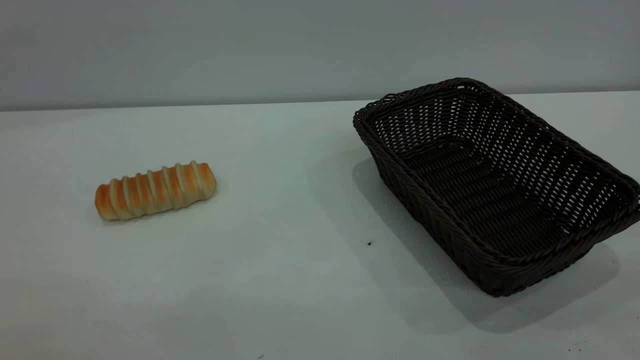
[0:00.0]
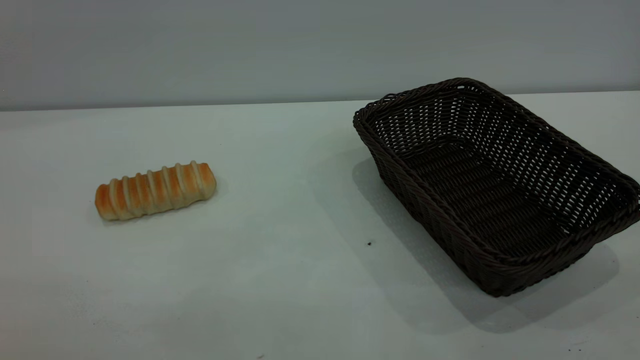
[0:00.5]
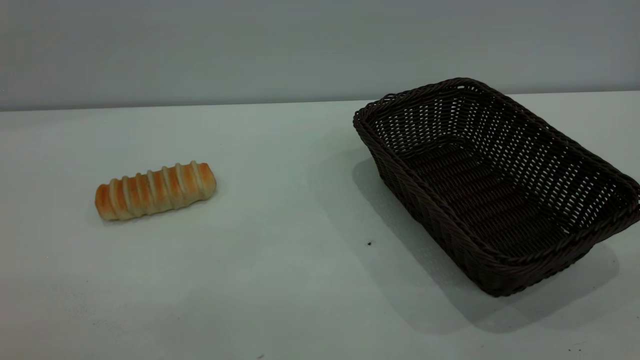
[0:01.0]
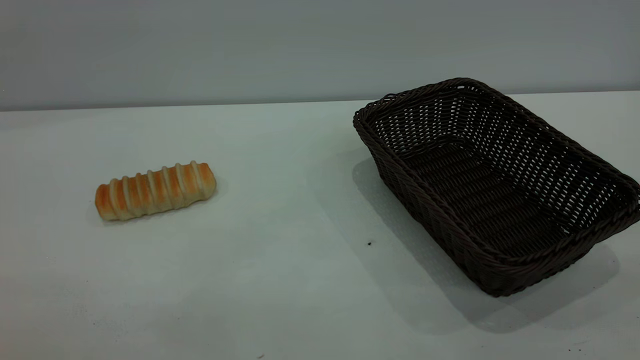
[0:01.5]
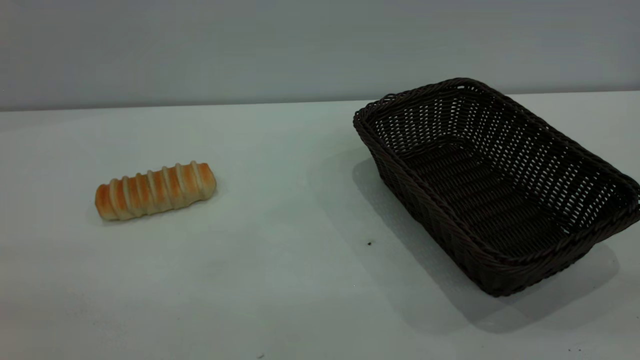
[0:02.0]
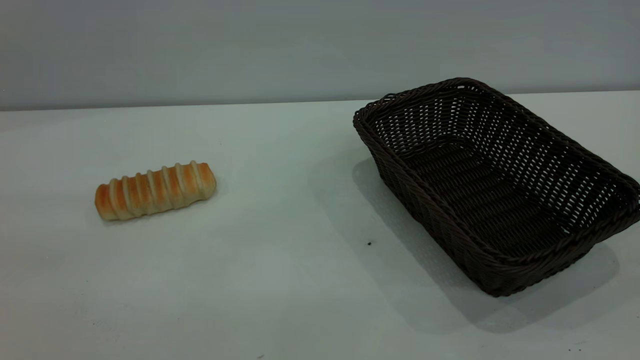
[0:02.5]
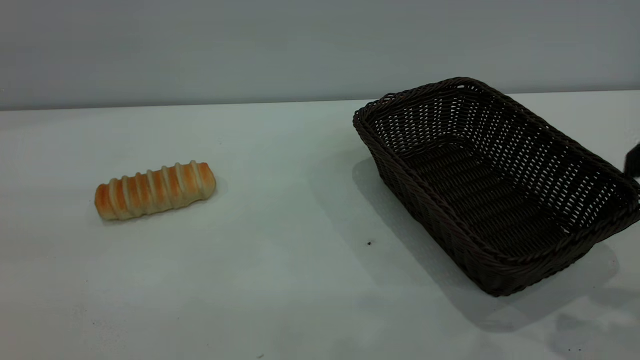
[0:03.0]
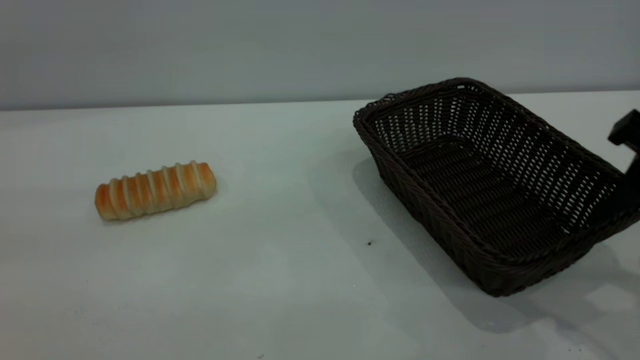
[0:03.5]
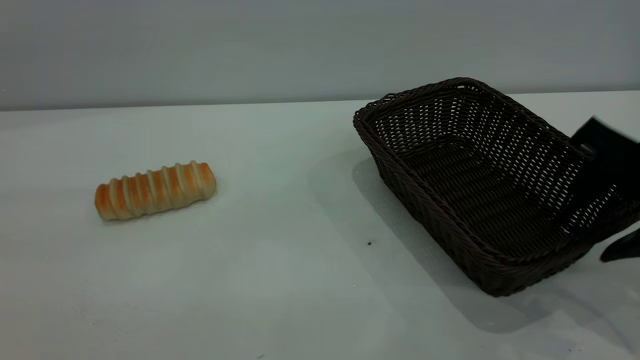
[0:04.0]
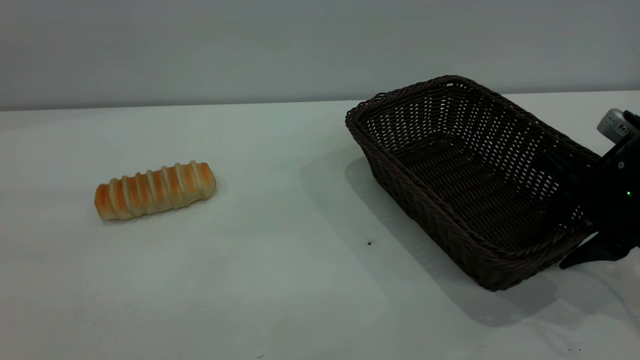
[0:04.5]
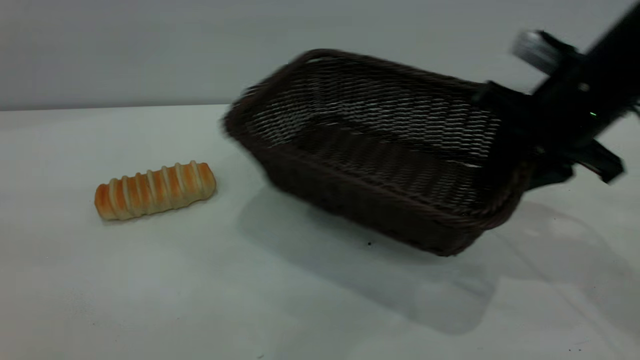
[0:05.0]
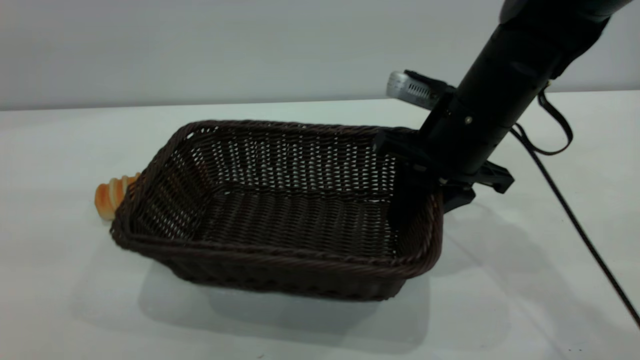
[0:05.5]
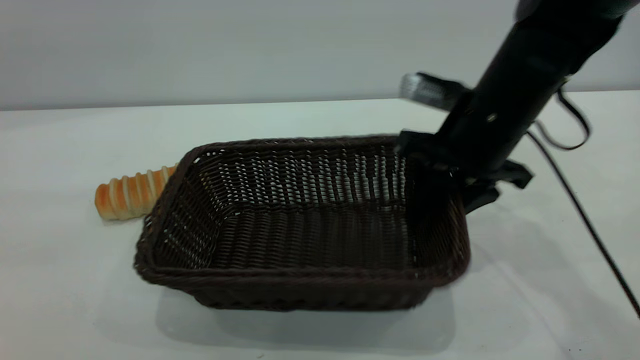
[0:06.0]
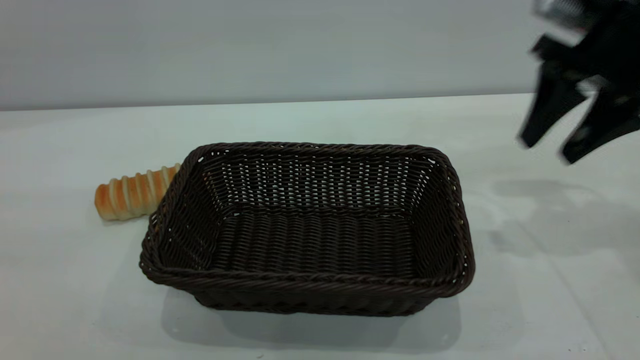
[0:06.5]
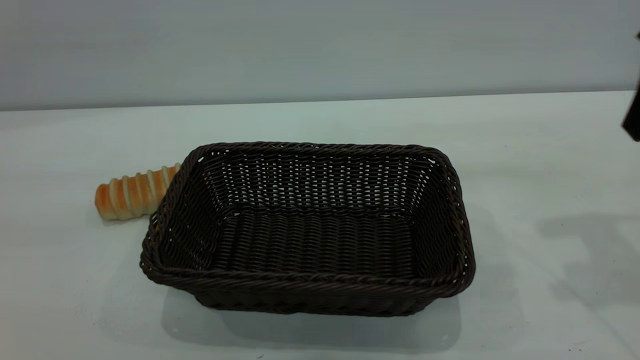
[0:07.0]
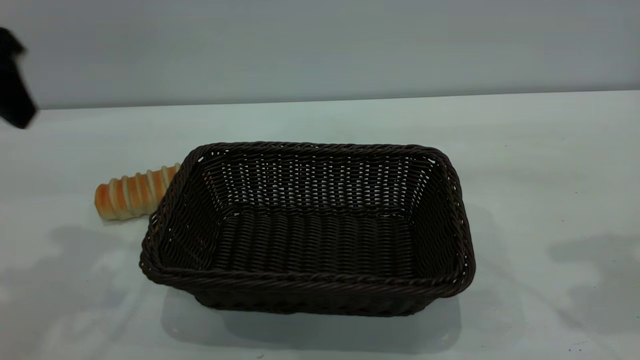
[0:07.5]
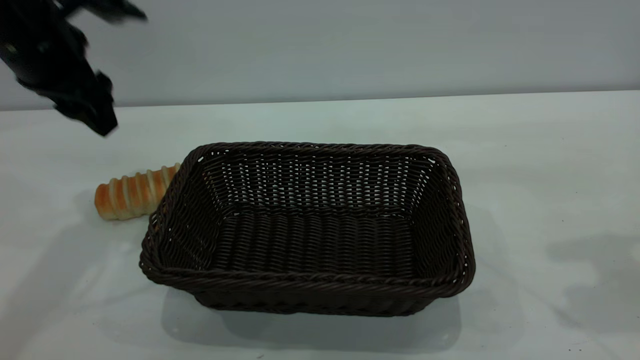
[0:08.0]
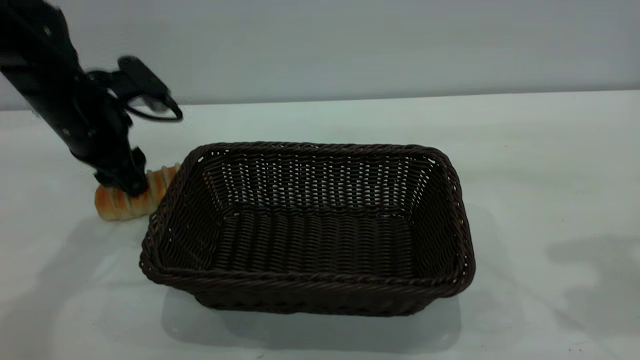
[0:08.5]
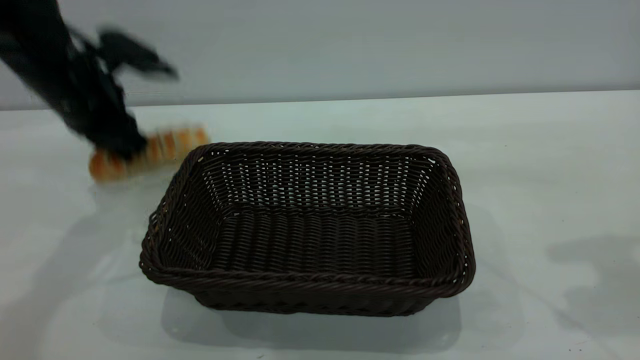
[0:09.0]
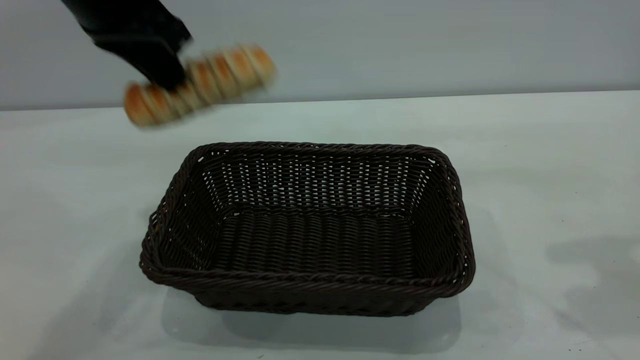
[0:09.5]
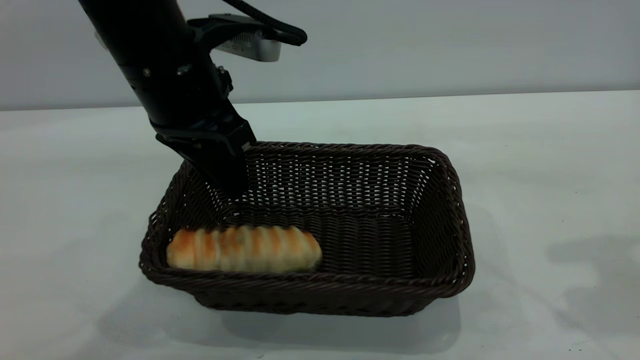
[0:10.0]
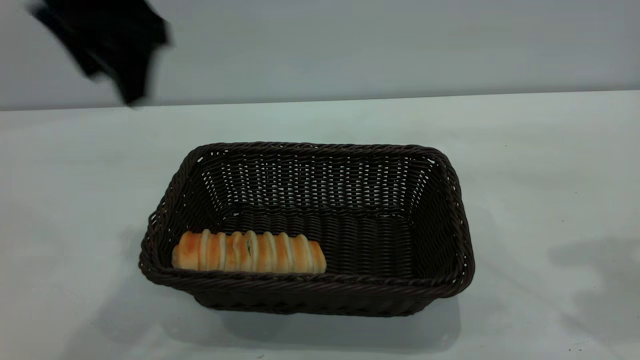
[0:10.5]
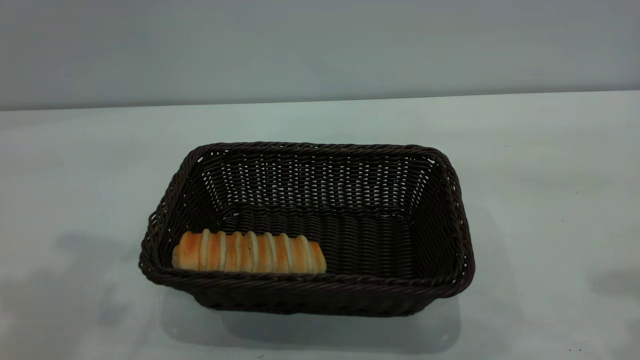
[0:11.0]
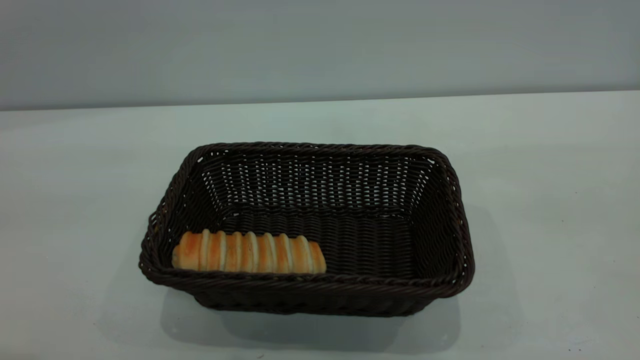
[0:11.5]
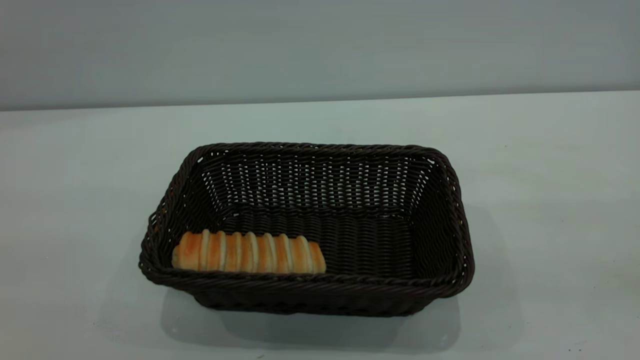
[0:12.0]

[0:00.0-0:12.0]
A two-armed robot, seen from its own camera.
Task of the whole recording: One hand grasps the black basket and places it in the middle of the table, while the other hand picks up the long bread and puts it into the black basket.
Step, 0:00.0 to 0:06.0: Move the basket to the center of view.
Step, 0:09.5 to 0:10.0: place the bread into the basket.
0:02.0 to 0:04.0: The right gripper moves forward and downward, approximately 30 cm.
0:04.0 to 0:06.0: The right gripper moves to the left and forward, some 15 cm, and closes up.
0:06.0 to 0:08.0: The right gripper shifts some 25 cm upward, to the right and backward, and opens up. Meanwhile the left gripper travels forward and downward by about 35 cm.
0:08.0 to 0:10.0: The left gripper swings up and down, approximately 15 cm each way, with 2 reversals, and closes and opens again.
0:10.0 to 0:12.0: The right gripper is displaced backward by roughly 20 cm. The left gripper shifts about 35 cm backward, to the left and upward, and opens.

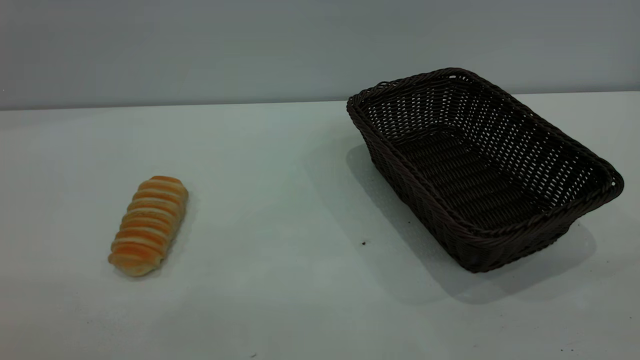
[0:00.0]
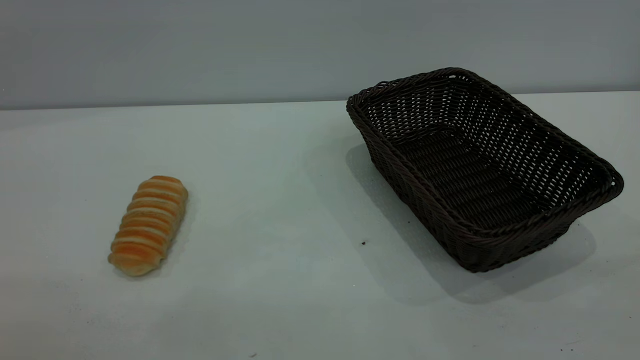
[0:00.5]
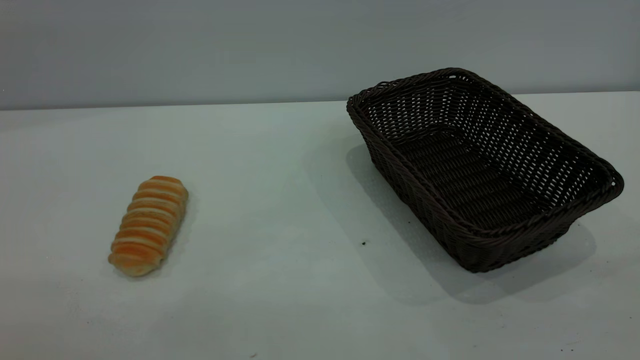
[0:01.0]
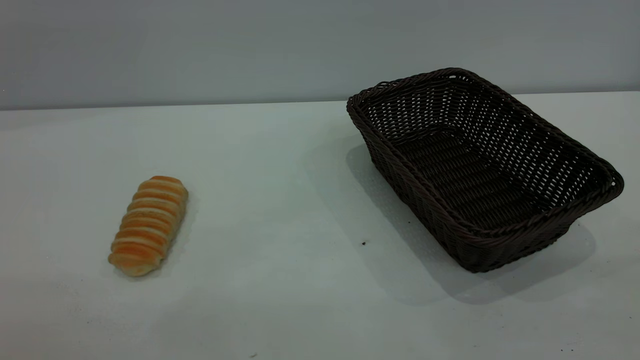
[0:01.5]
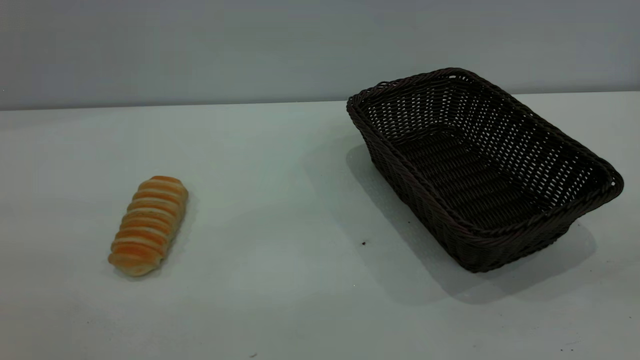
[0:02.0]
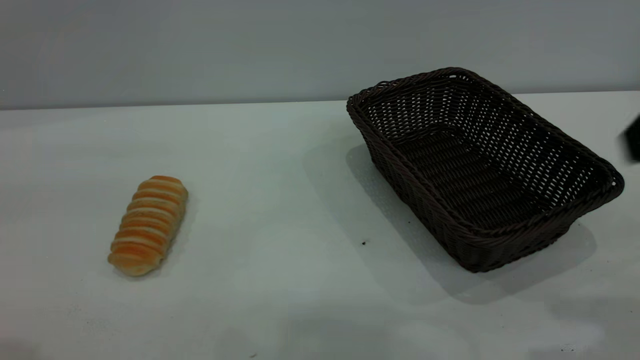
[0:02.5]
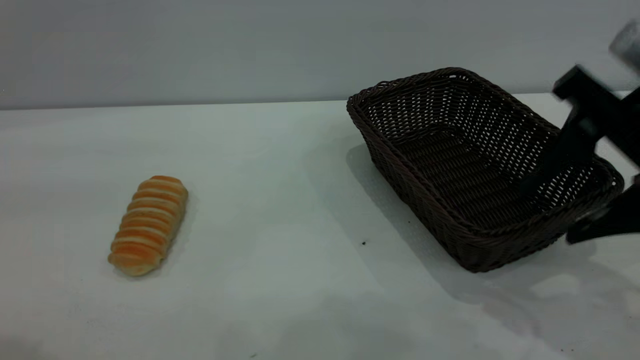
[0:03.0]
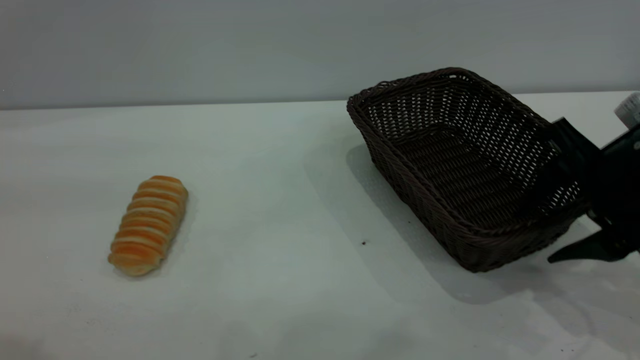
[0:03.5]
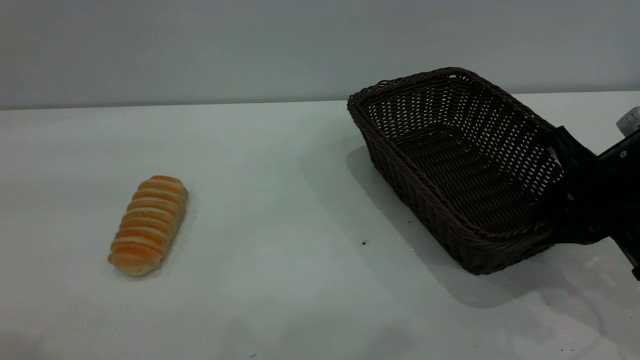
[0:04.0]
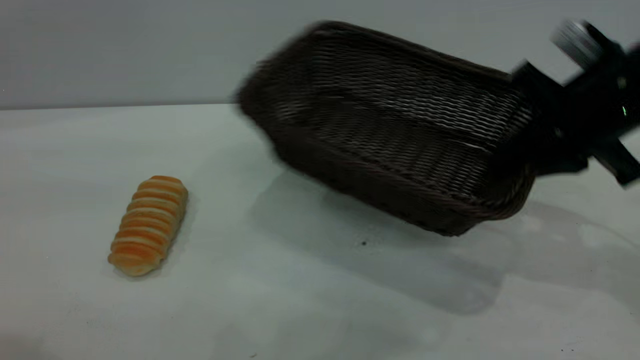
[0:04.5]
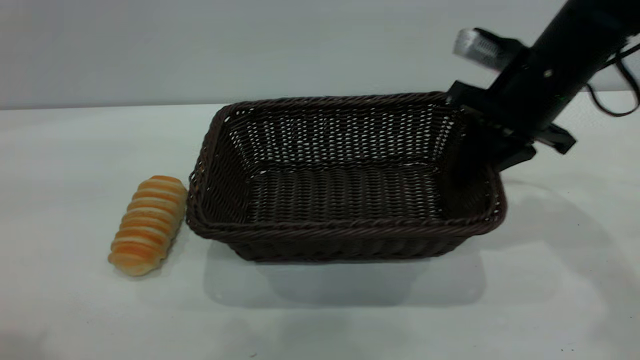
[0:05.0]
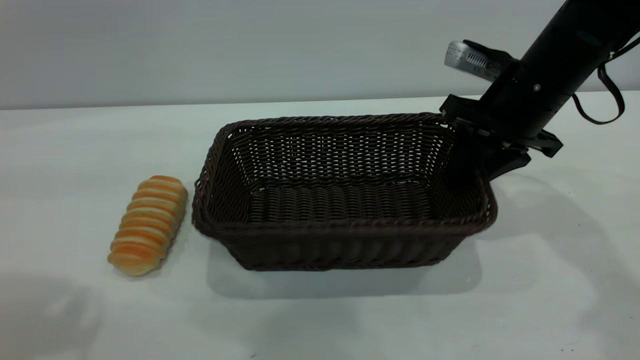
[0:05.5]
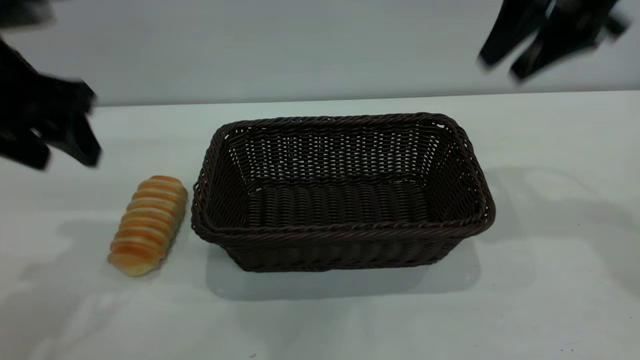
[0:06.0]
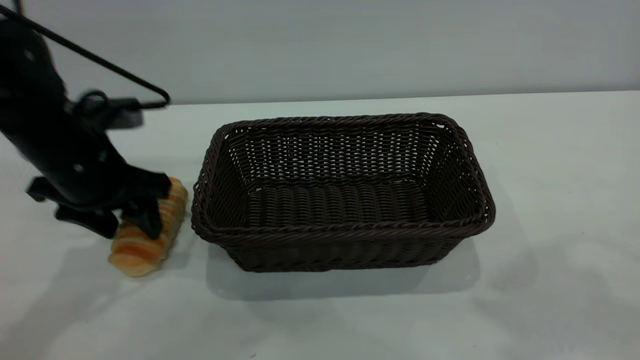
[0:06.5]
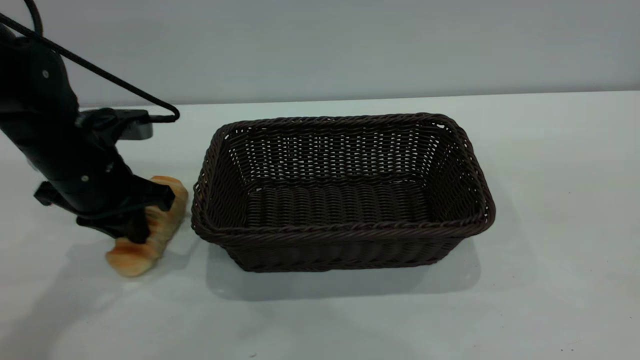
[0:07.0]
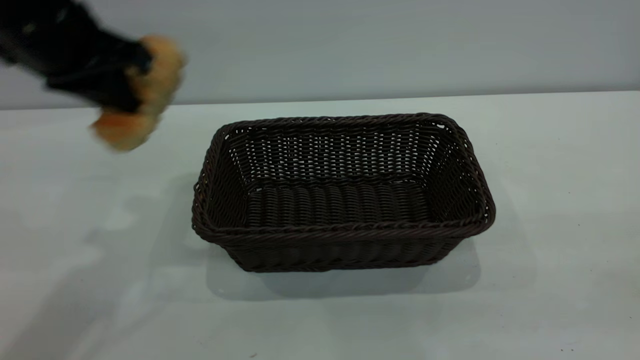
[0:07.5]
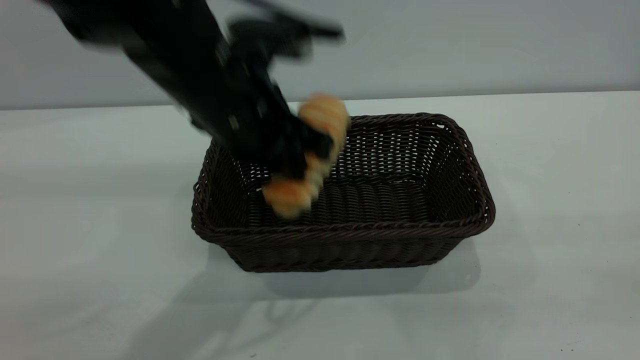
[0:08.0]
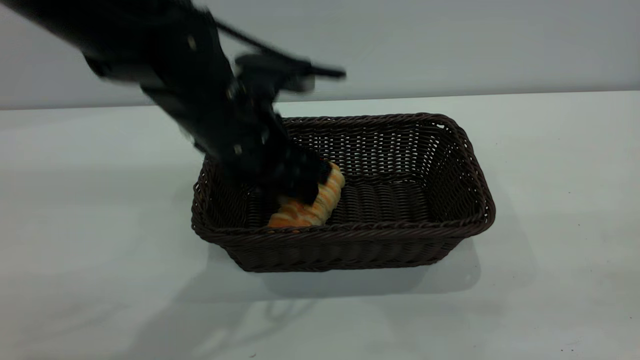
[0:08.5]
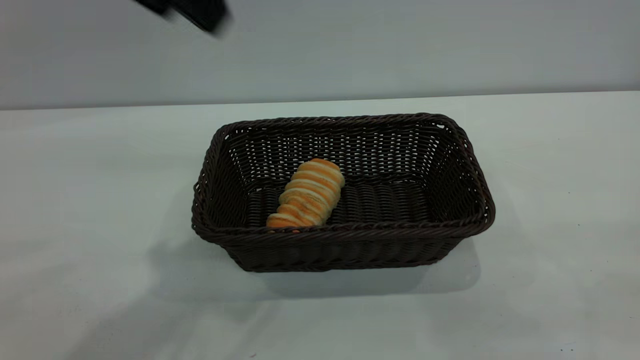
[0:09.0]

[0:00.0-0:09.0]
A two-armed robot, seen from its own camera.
Task of the whole recording: One hand grasps the black basket and places it in the middle of the table, while the other hand picks up the long bread and puts it into the black basket.
Step, 0:00.0 to 0:05.5: Move the basket to the center of view.
Step, 0:07.5 to 0:08.5: place the bread into the basket.
0:02.0 to 0:04.5: The left gripper heads forward, covering approximately 10 cm; the right gripper travels forward and downward by roughly 35 cm, and closes up.
0:04.5 to 0:07.0: The right gripper heads backward and upward, covering about 30 cm, and opens; the left gripper is displaced downward and forward by some 35 cm, and closes up.
0:07.0 to 0:09.0: The left gripper moves up and down over about 25 cm, changing direction 2 times, and opens its fingers, while the right gripper heads downward and backward, covering about 10 cm.
